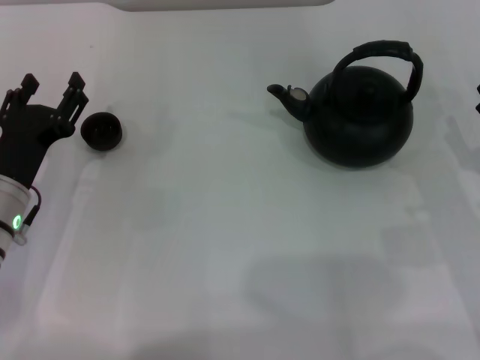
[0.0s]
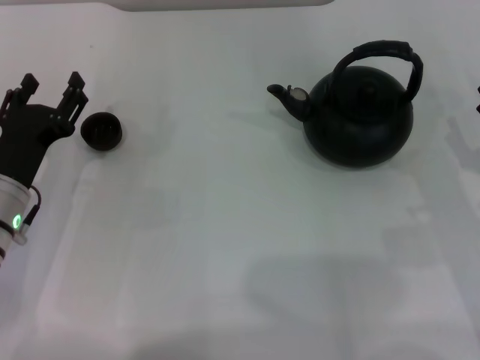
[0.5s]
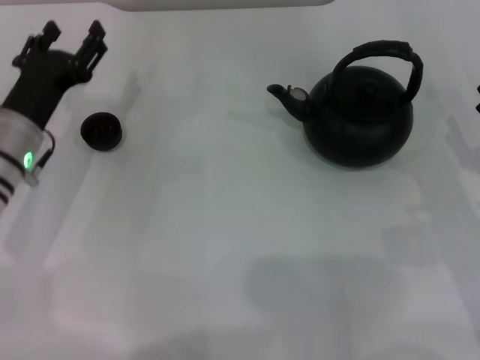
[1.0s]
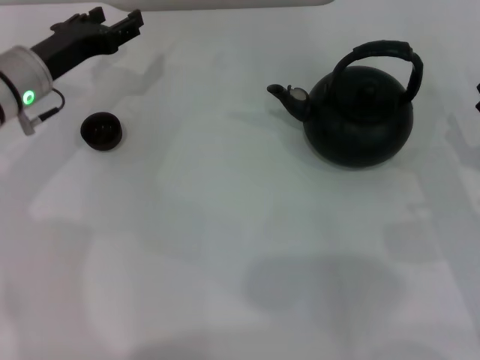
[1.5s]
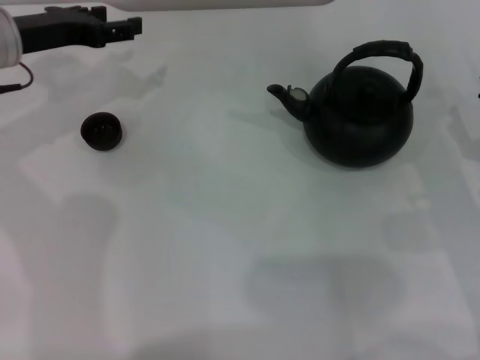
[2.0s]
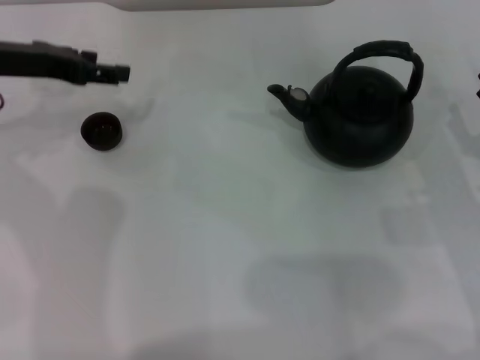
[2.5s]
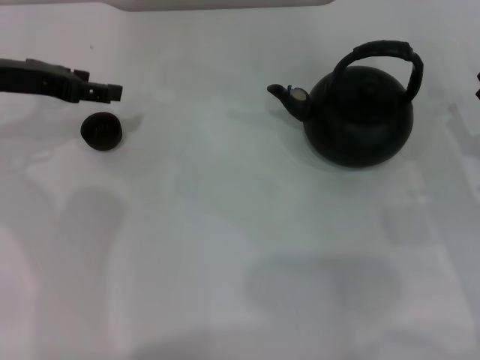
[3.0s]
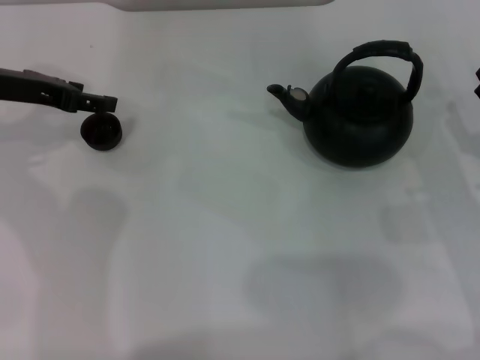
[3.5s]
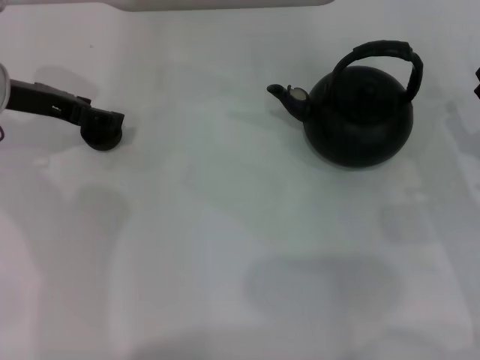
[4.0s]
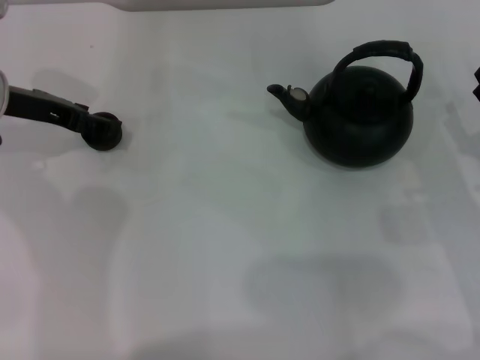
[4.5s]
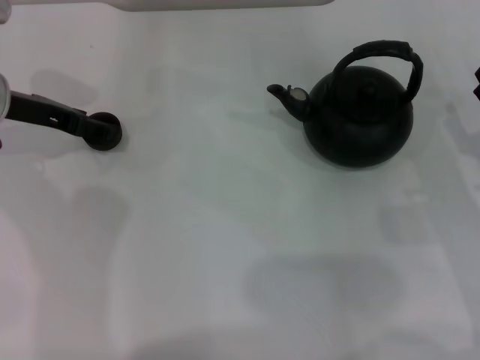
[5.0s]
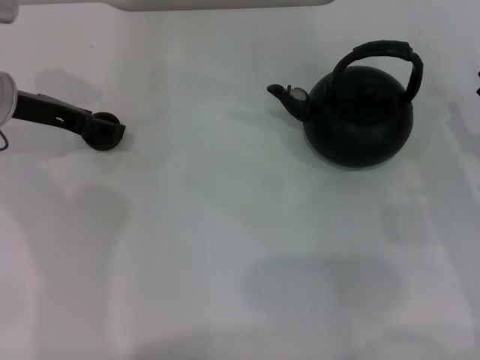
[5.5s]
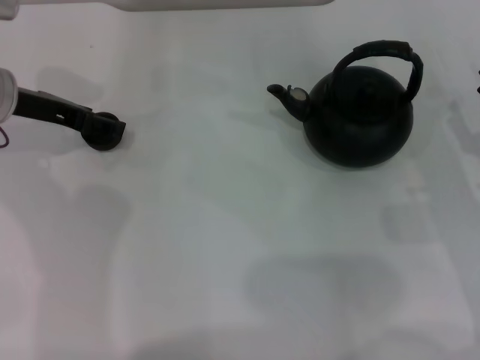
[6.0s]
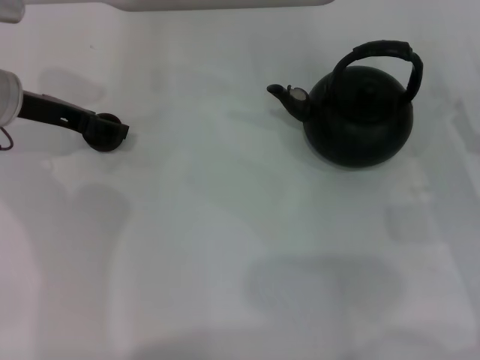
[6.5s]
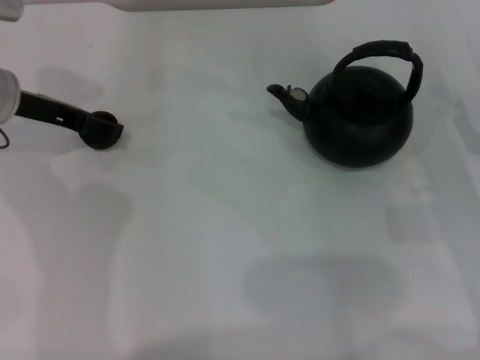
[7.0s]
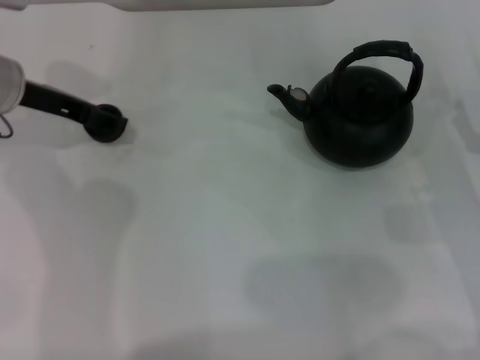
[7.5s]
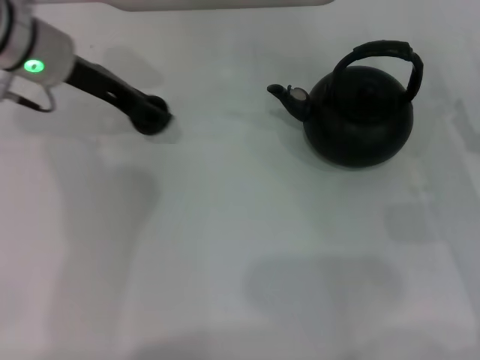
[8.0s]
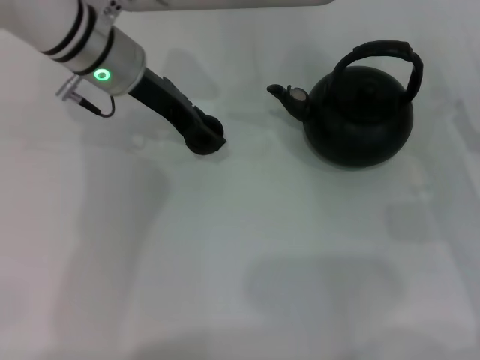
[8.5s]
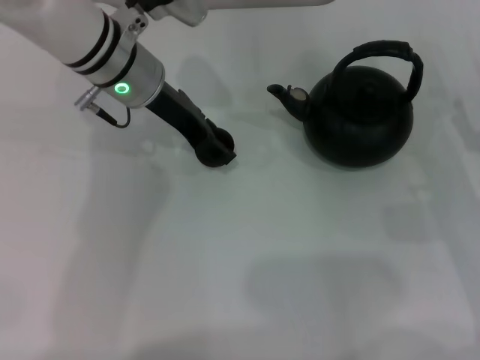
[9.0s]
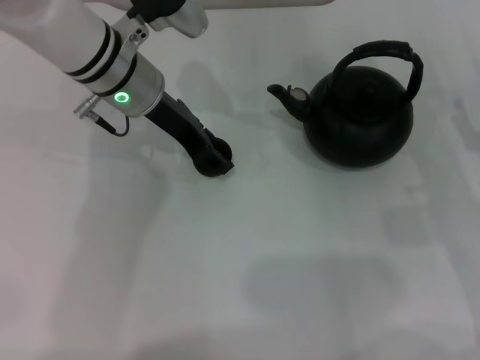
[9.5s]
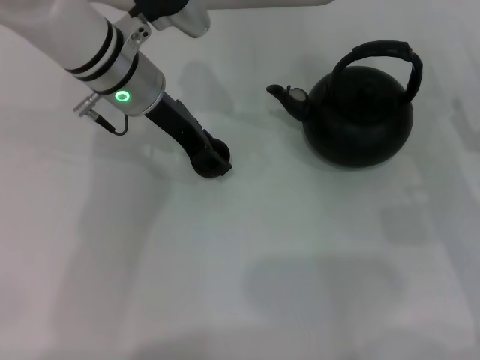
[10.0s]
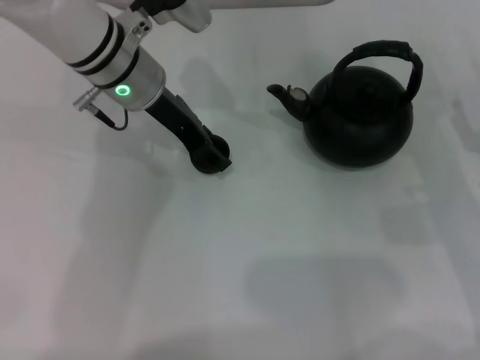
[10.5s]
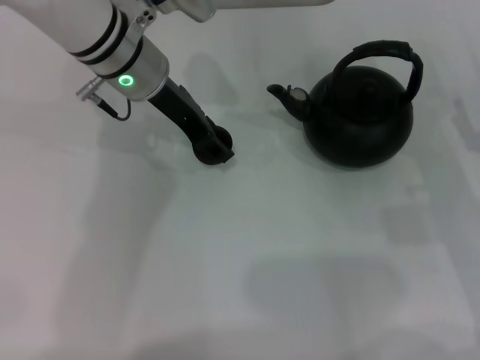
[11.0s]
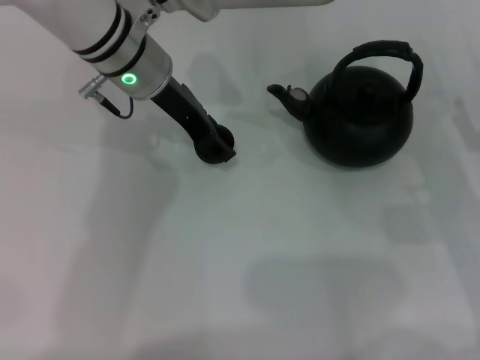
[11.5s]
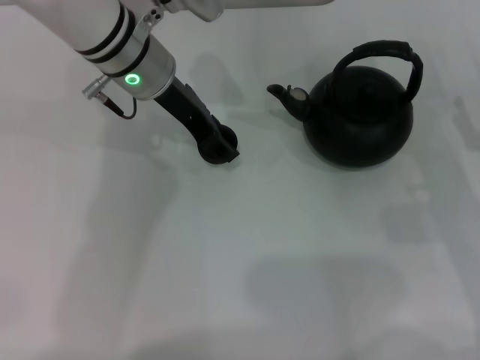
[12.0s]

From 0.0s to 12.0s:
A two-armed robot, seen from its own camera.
Task of the whole recording: Grasp the handle of the teapot with one hand and pour tea into the teacup.
From 0.0s to 2.0s: The left gripper goes about 20 cm forward and upward.
From 4.0s to 6.0s: Both grippers stay about where they are.
From 6.0s to 8.0s: The left gripper moves to the right, some 5 cm, and closes.
From 8.0s to 10.0s: The left gripper shifts approximately 10 cm to the right.
From 10.0s to 12.0s: The grippers stay close to where they were, moving slightly.

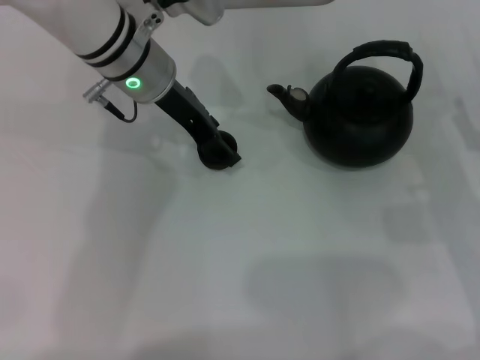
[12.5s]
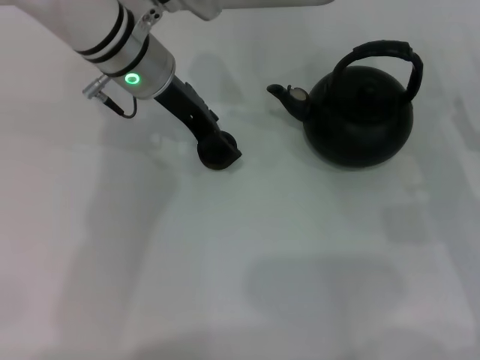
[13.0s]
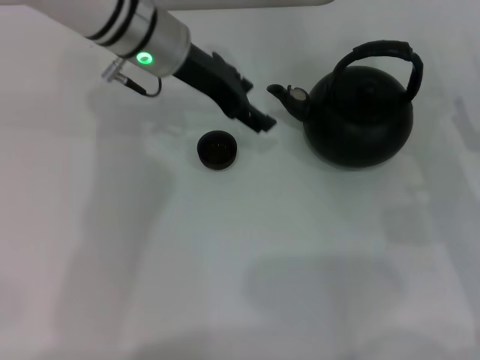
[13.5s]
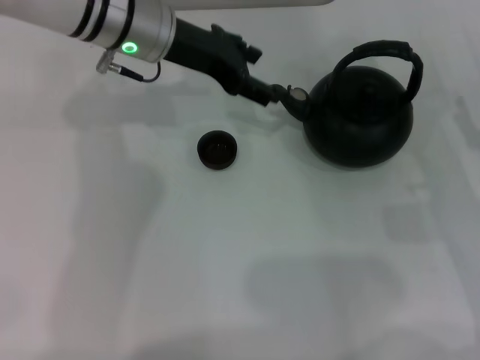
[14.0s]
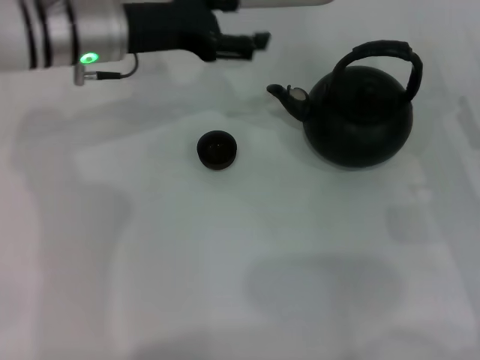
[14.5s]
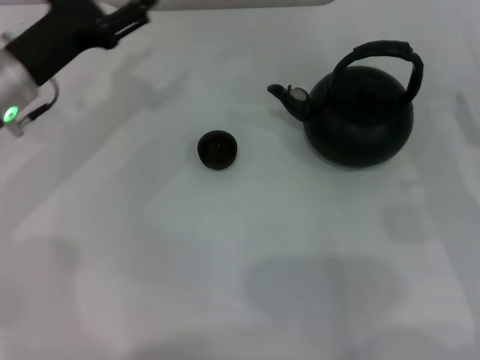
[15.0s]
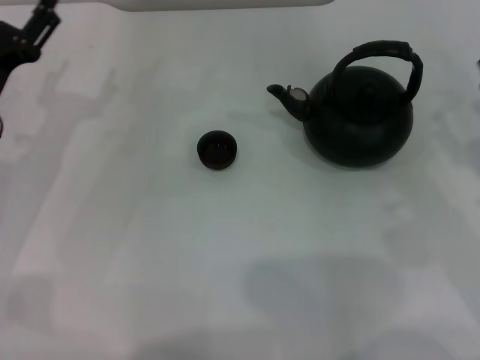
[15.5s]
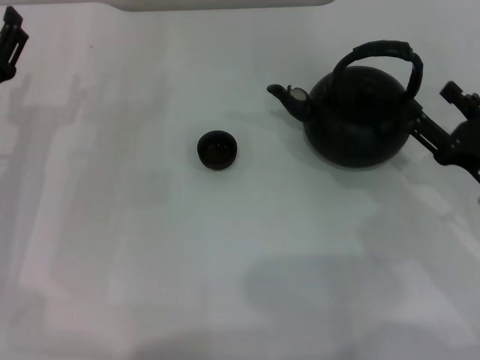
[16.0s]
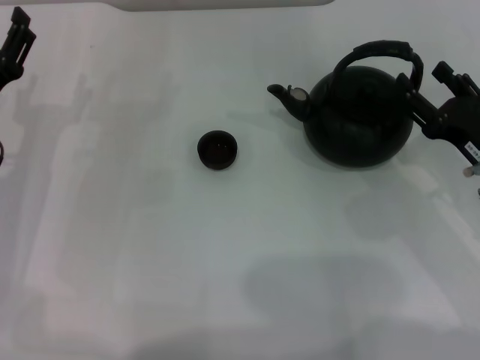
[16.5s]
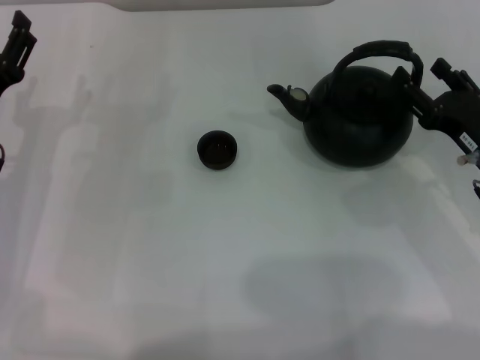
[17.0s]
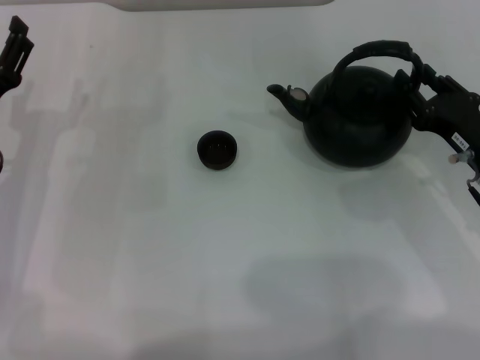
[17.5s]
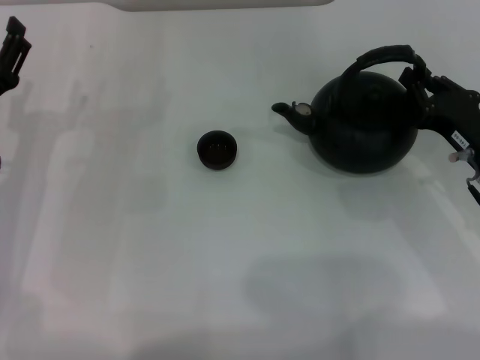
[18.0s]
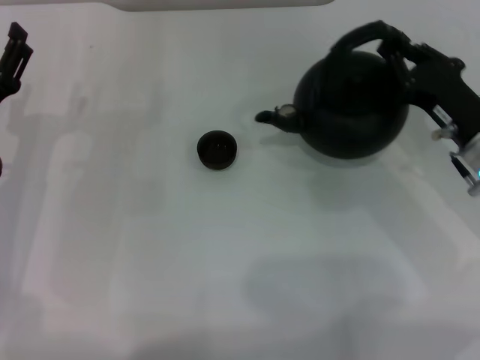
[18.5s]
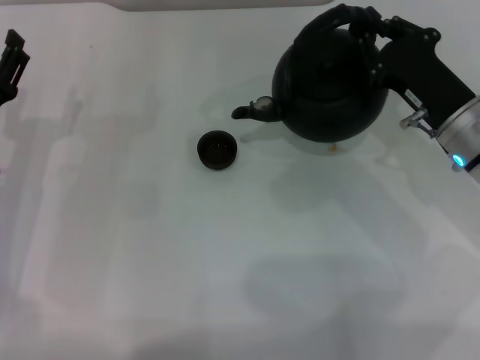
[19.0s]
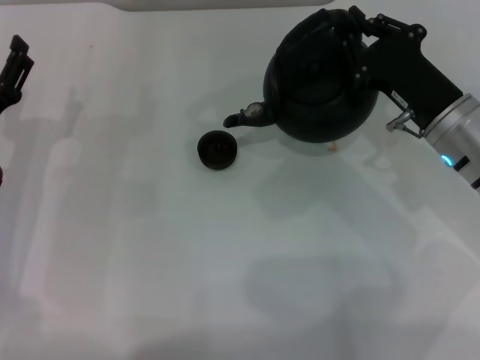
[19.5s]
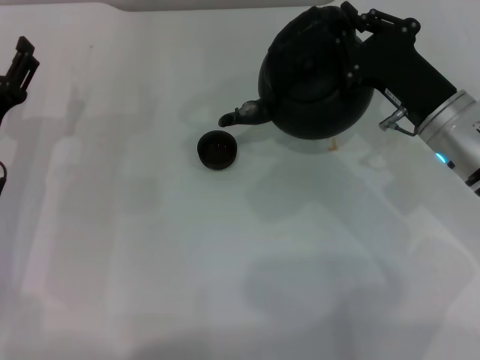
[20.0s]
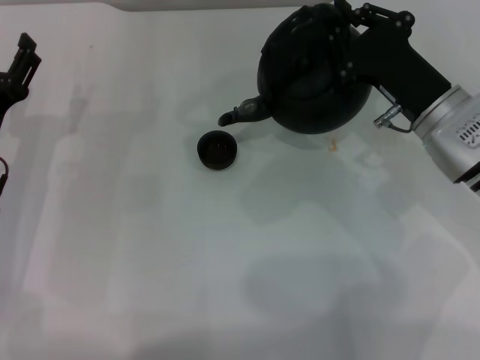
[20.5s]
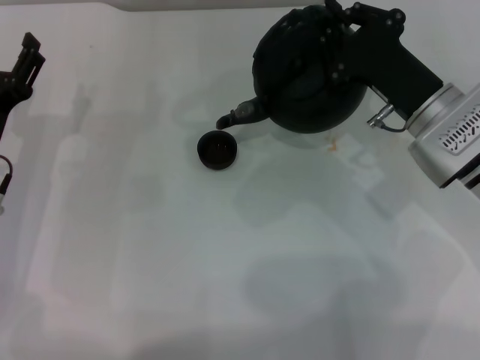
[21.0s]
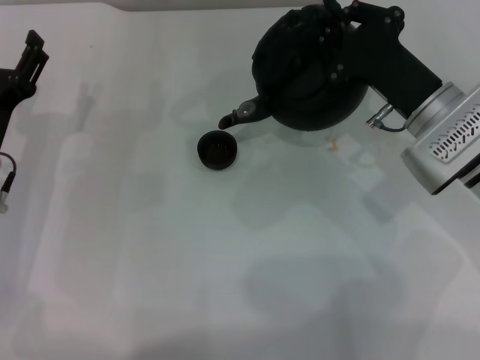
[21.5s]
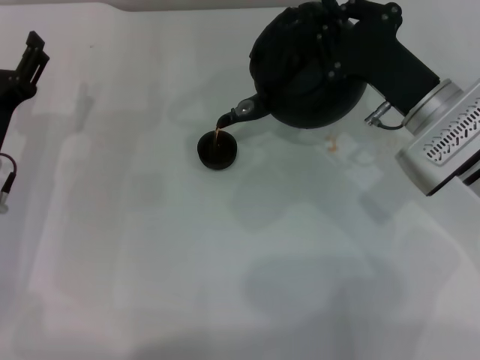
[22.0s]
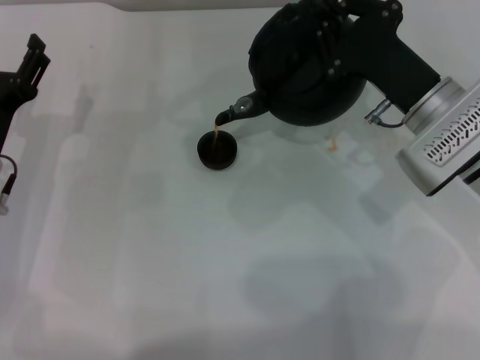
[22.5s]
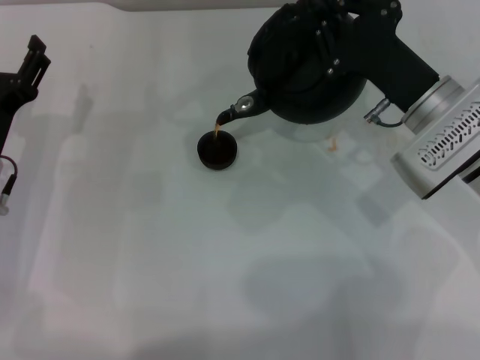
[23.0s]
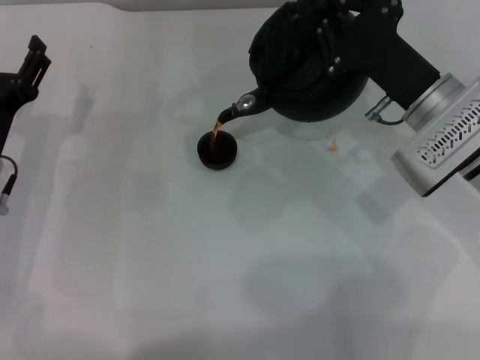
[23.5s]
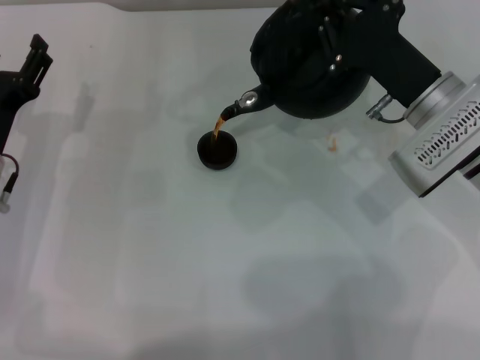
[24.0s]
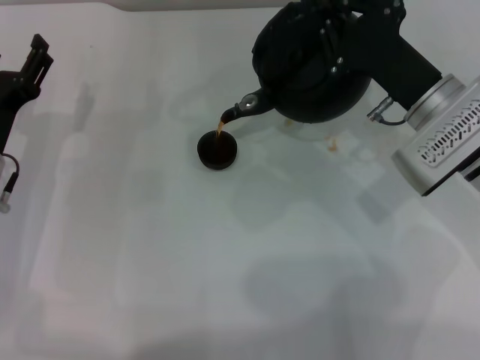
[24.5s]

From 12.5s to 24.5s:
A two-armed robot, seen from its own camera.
Task of the whole recording: Grasp the handle of the teapot with one hand and pour tea into the teacup.
Step, from 14.0s to 18.5s: Pick up the teapot with the left gripper.
From 12.5s to 14.5s: The left gripper goes some 5 cm to the left, and opens up.
From 14.5s to 16.5s: The left gripper goes some 20 cm backward, to the left and downward.
From 16.5s to 18.5s: The right gripper closes.
From 18.5s to 20.5s: The right gripper changes place by roughly 5 cm.
From 20.5s to 24.5s: The grippers stay close to where they were, moving slightly.

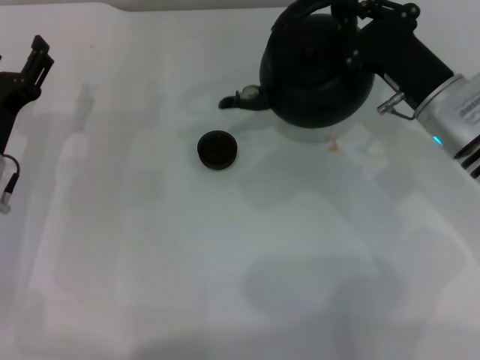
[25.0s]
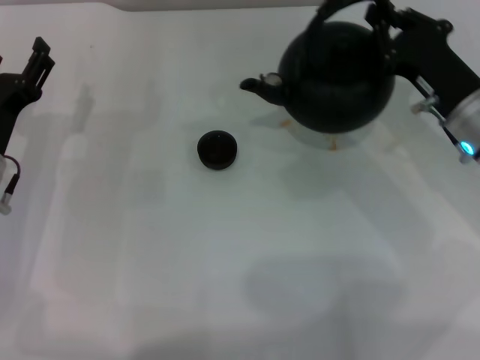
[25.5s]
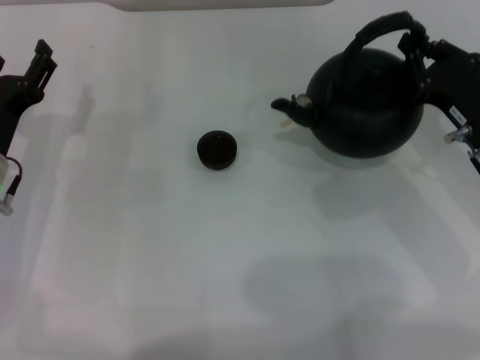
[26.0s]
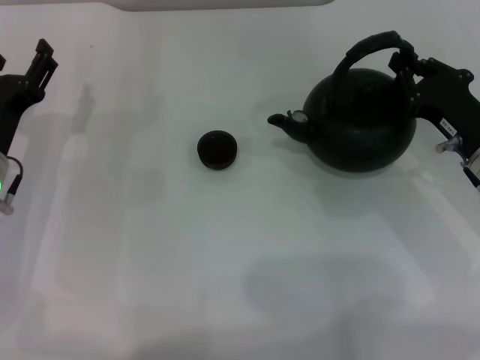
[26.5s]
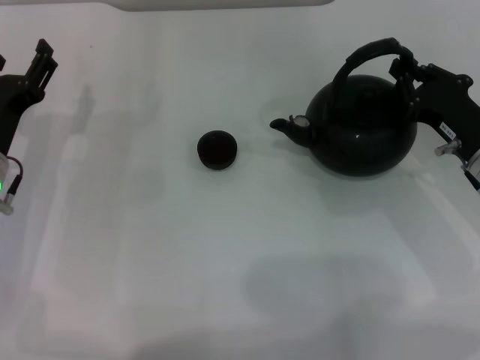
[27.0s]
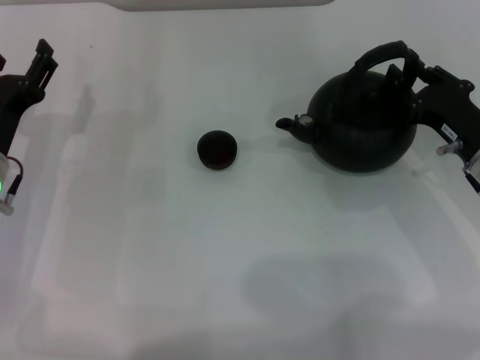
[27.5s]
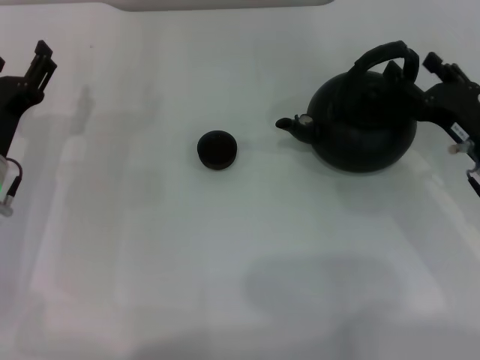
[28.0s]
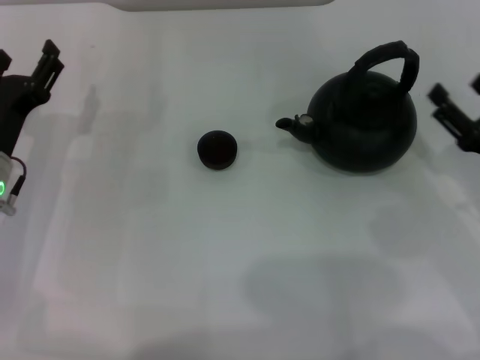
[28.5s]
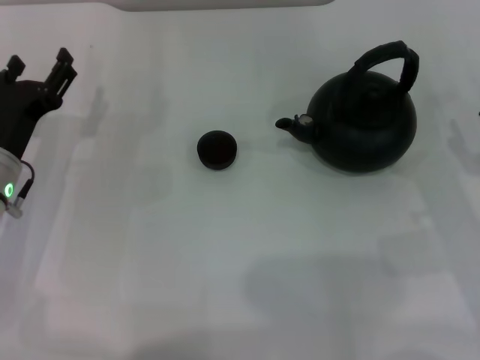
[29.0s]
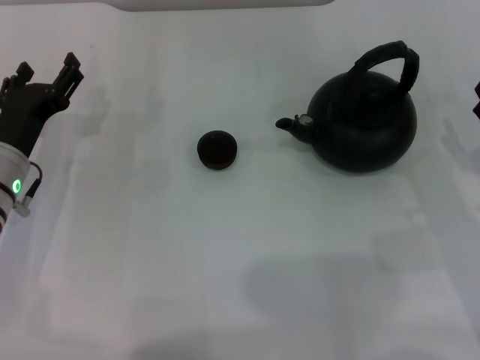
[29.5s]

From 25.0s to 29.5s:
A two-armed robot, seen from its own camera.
Task of the whole recording: Grasp the handle of the teapot with one hand and pour tea into the teacup.
From 25.0s to 27.0s: The right gripper heads to the right, covering some 5 cm.
From 27.0s to 29.5s: The right gripper heads backward, covering roughly 5 cm, and opens up.
